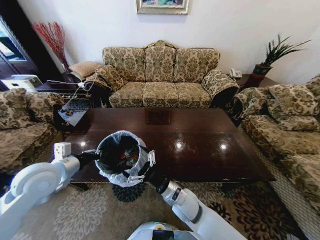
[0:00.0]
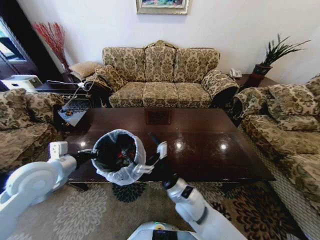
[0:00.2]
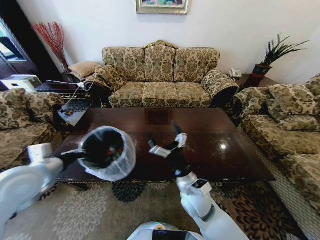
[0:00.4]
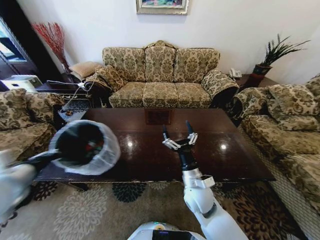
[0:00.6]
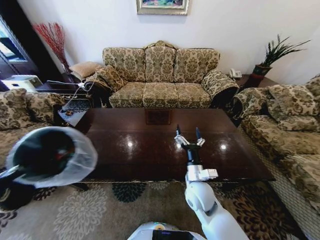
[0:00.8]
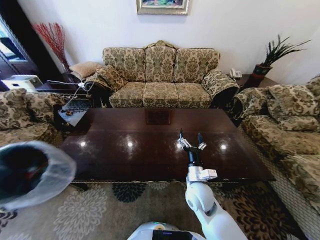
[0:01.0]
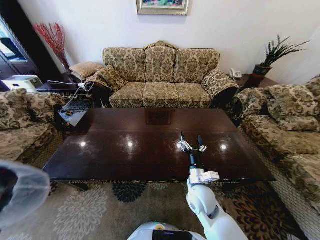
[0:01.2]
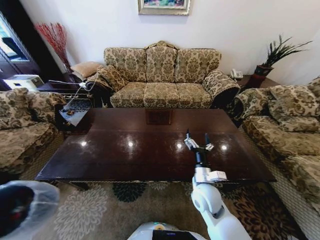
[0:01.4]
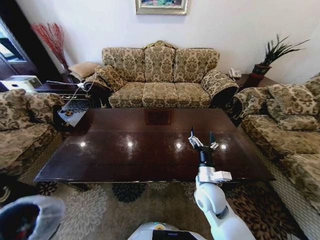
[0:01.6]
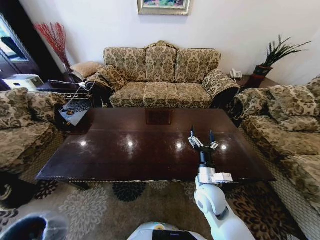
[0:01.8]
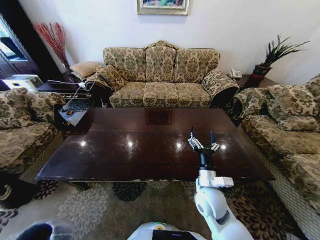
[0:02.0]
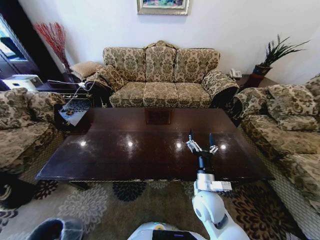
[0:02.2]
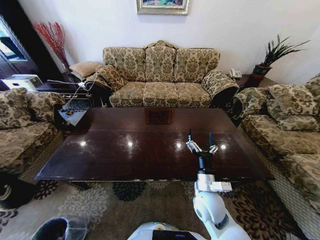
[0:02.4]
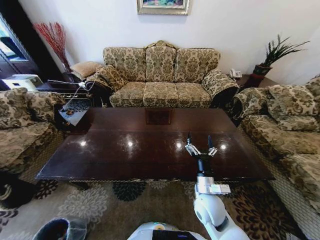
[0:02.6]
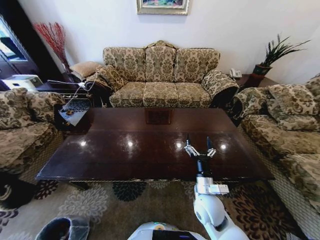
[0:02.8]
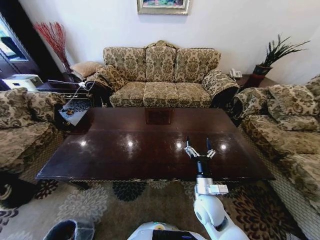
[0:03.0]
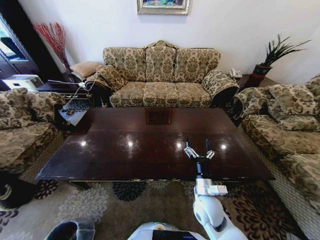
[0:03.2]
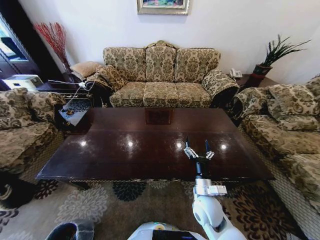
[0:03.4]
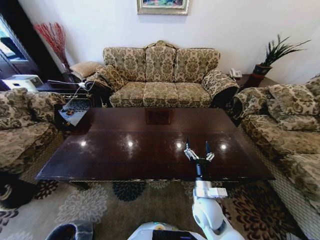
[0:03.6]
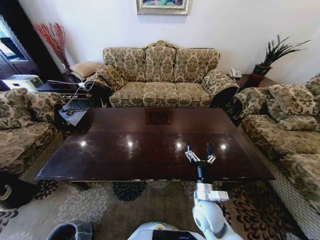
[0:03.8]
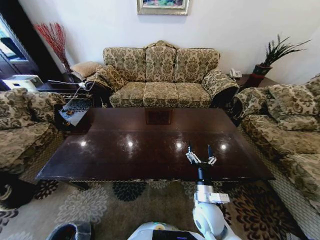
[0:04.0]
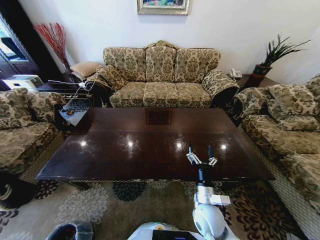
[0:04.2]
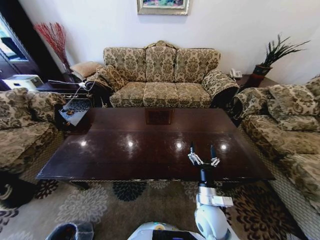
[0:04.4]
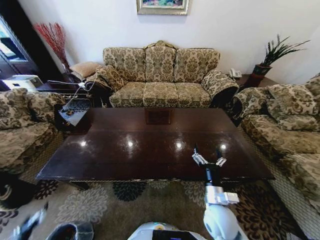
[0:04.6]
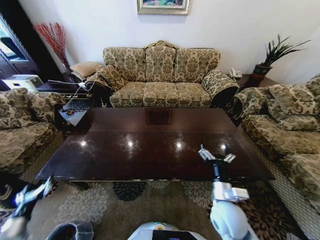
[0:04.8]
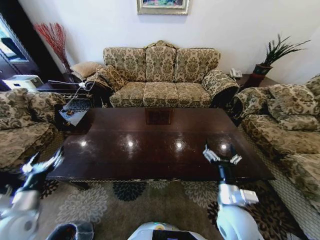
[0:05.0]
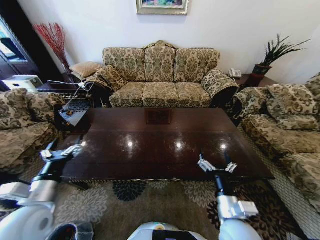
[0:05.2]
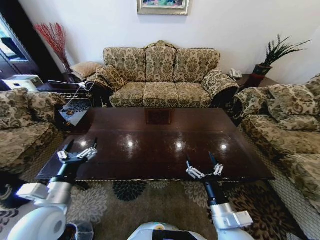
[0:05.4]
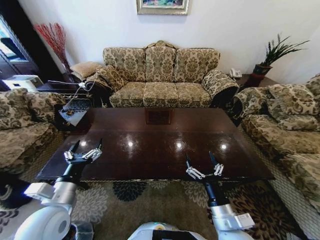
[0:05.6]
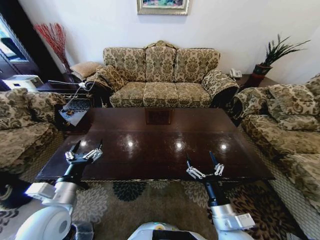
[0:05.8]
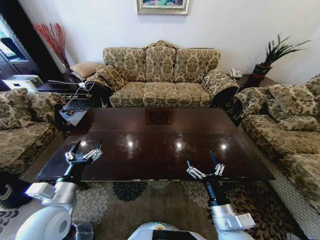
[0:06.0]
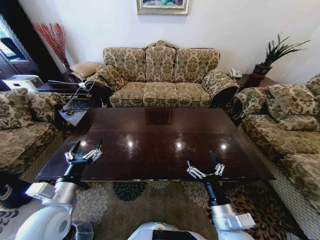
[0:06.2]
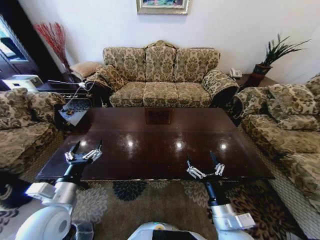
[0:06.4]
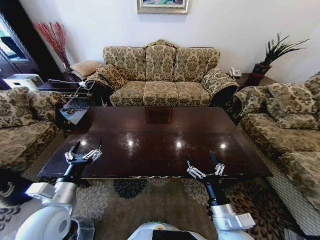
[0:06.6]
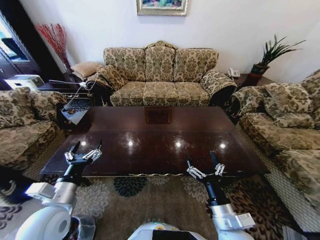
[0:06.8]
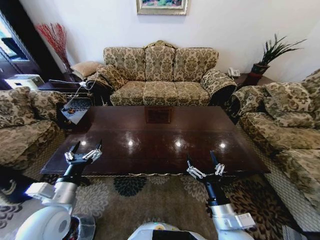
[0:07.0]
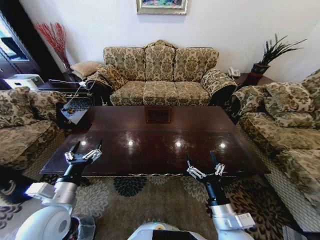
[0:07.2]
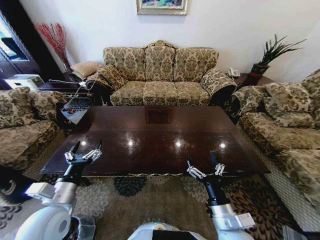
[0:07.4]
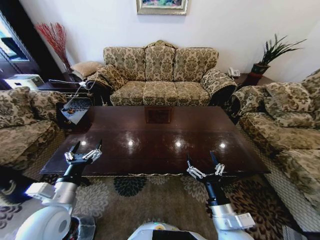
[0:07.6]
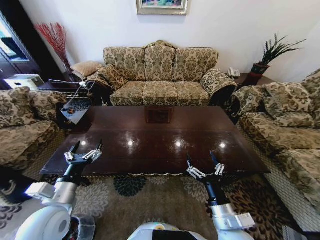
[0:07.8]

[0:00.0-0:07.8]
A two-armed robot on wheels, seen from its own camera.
Task of the whole recording: Move to the front of the table and place the trash on the table into the trash bin.
0.0 to 1.6 s: The left gripper goes some 40 cm backward, downward and to the left, while the right gripper shifts some 10 cm to the right.
1.6 to 3.2 s: The left gripper is displaced downward by some 25 cm.
3.2 to 4.6 s: The left gripper goes approximately 15 cm upward, and opens.
4.6 to 6.2 s: The left gripper goes some 40 cm upward, to the right and forward. The right gripper is displaced backward by approximately 5 cm.
6.2 to 7.8 s: Neither gripper changes place.

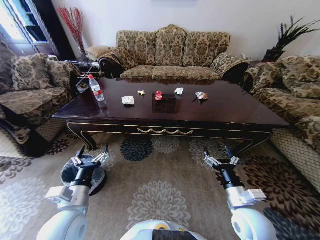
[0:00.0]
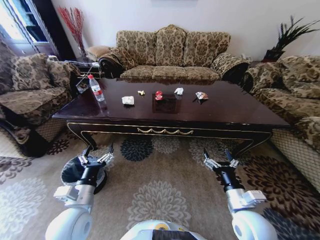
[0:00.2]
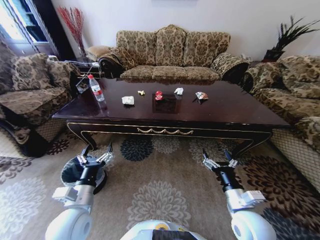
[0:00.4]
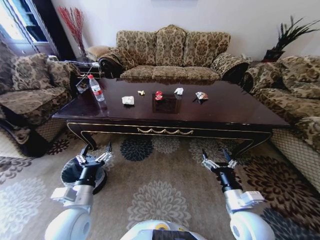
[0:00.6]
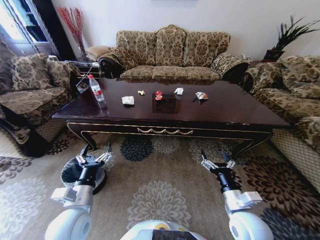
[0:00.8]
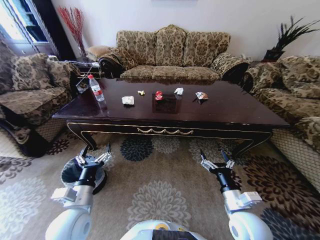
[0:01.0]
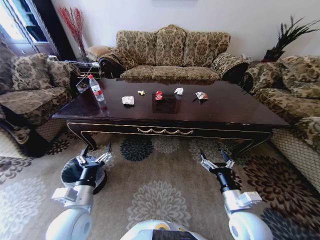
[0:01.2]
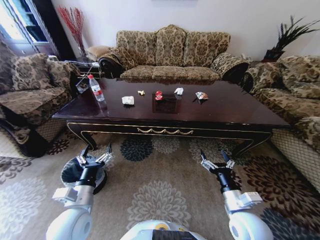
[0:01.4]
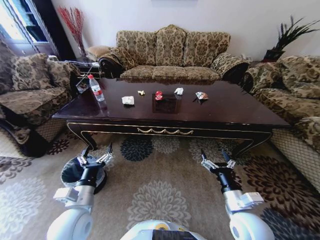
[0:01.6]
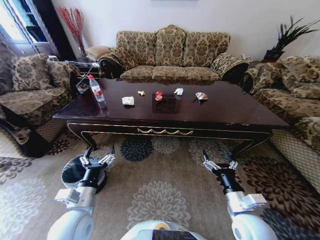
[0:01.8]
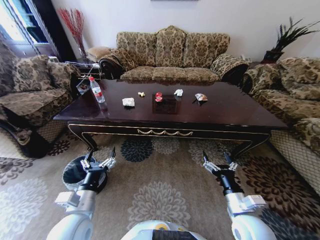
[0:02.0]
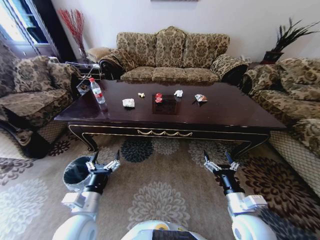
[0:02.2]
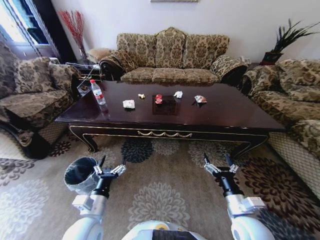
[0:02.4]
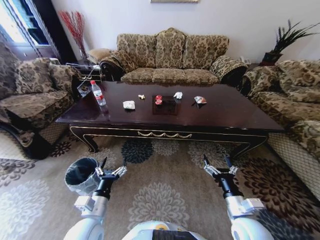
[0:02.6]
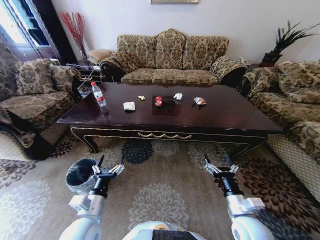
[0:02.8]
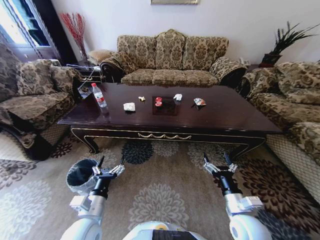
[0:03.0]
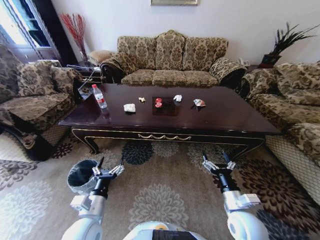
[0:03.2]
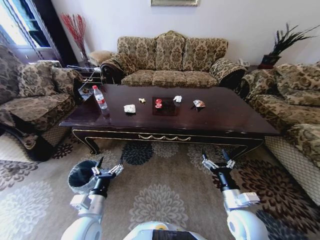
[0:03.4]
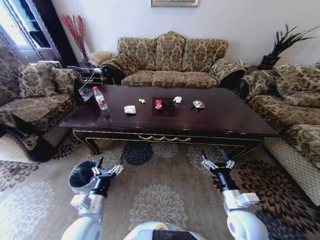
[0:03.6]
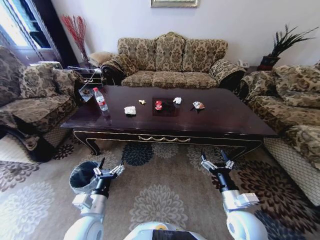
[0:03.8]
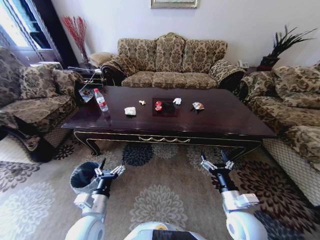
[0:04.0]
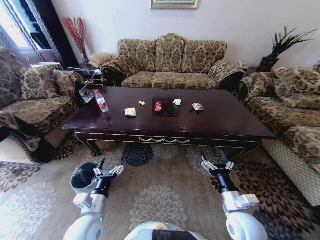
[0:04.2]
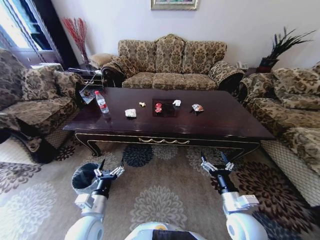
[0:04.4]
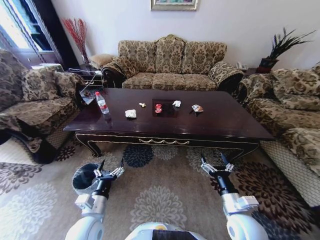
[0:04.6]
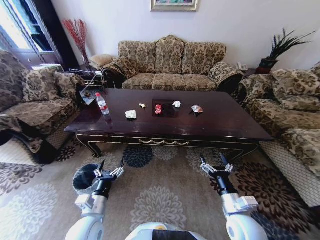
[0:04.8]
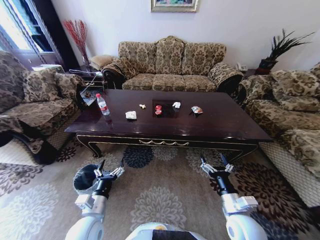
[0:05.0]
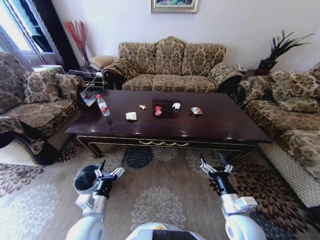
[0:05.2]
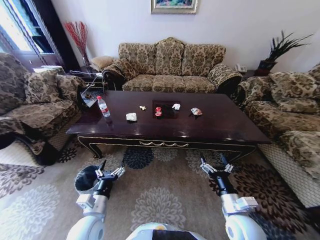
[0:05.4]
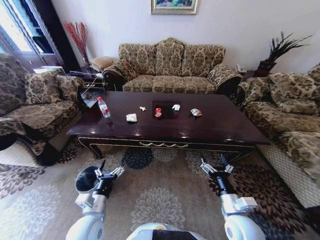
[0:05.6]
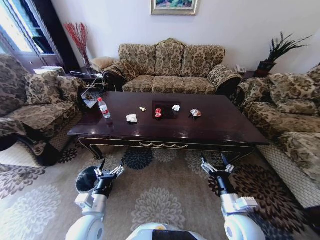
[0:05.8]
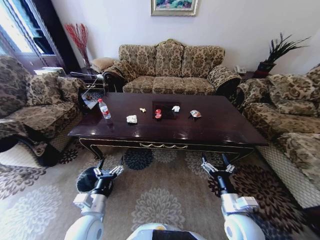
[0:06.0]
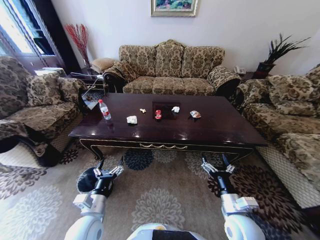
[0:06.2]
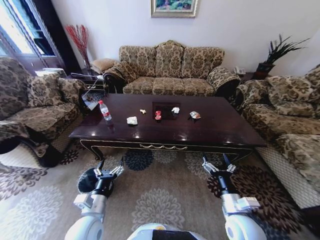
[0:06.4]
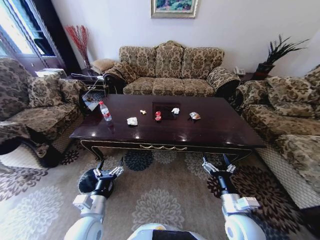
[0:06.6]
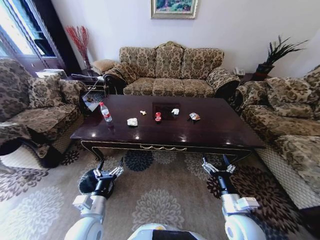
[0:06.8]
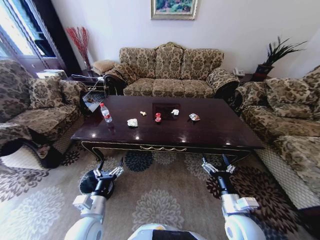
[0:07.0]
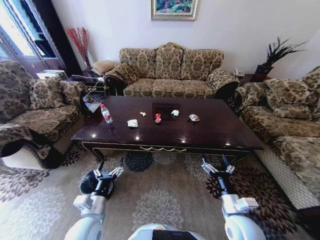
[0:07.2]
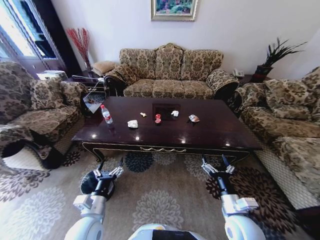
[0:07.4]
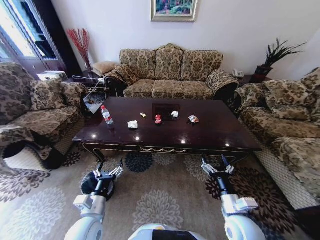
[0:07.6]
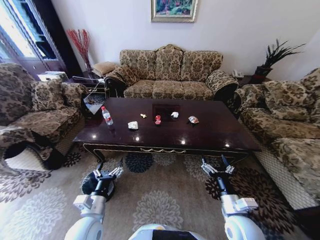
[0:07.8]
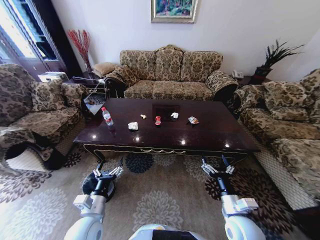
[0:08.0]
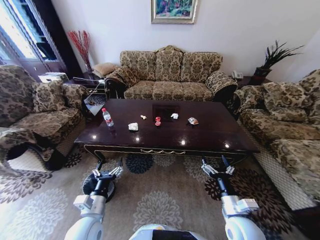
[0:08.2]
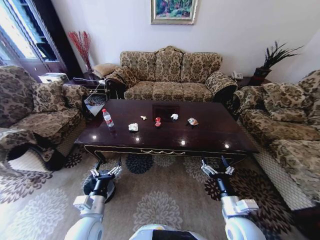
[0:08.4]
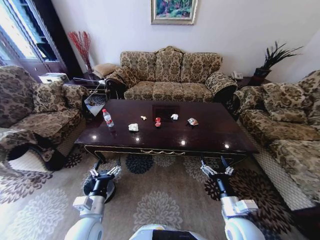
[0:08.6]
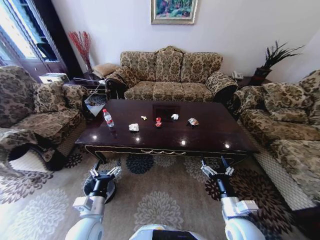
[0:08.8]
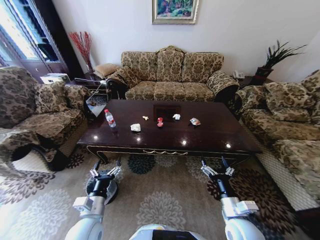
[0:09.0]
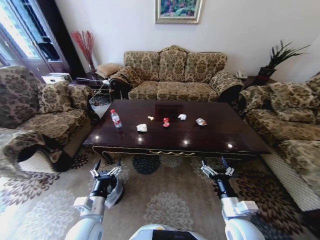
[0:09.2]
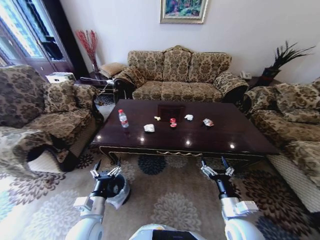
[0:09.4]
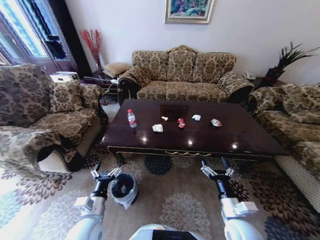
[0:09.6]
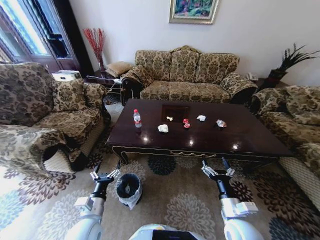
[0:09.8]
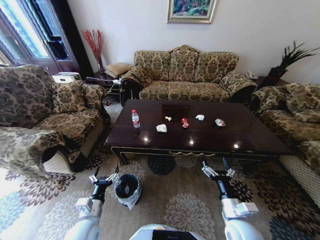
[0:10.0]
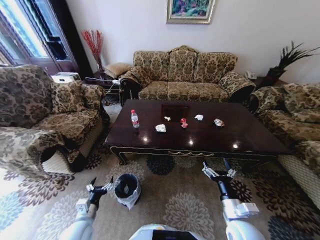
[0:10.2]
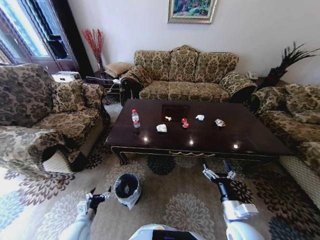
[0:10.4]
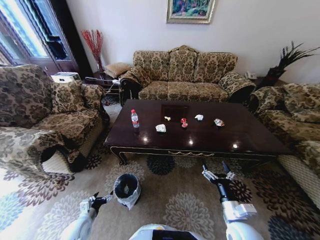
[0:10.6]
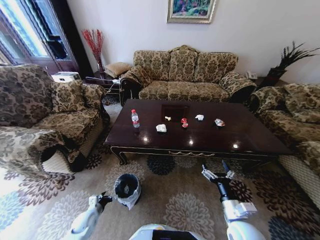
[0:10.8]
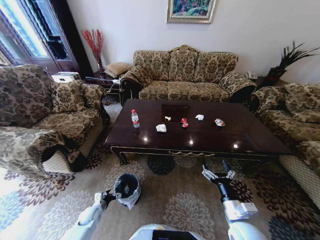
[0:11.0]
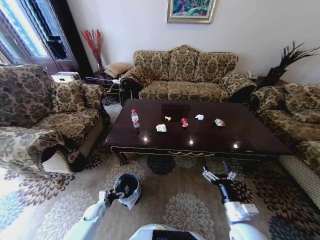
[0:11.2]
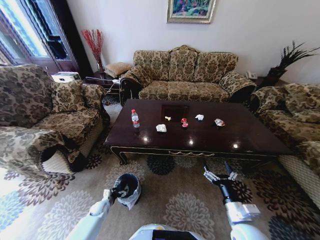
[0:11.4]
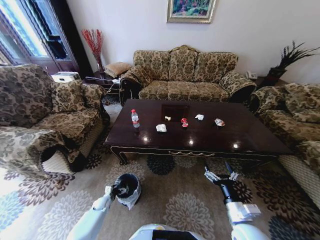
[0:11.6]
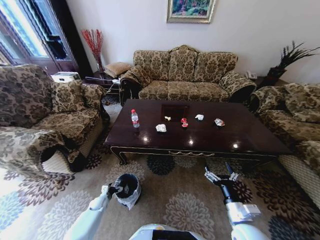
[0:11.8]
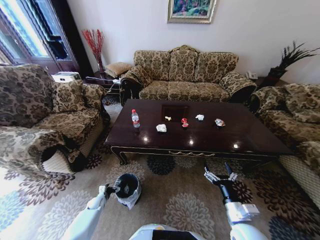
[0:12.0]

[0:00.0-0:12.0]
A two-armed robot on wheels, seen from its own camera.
Task of the whole recording: Move to the front of the table and place the trash on the table into the trash bin.
9.0 to 10.4 s: The left gripper goes roughly 15 cm downward and to the left.
10.4 to 12.0 s: The left gripper shifts roughly 20 cm downward and forward.

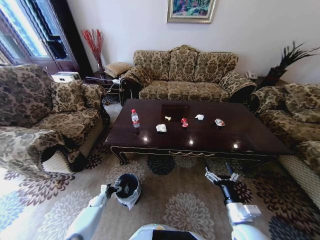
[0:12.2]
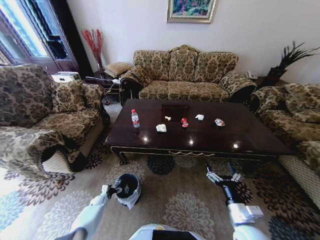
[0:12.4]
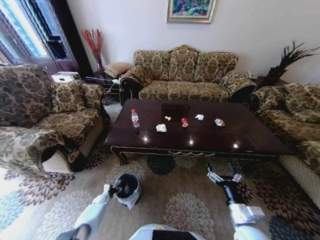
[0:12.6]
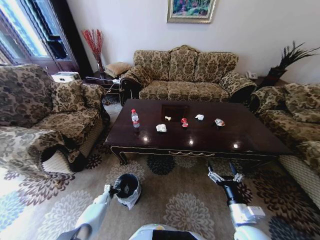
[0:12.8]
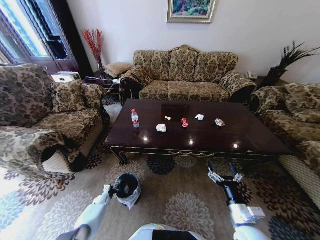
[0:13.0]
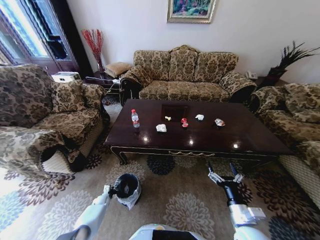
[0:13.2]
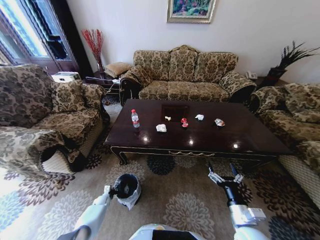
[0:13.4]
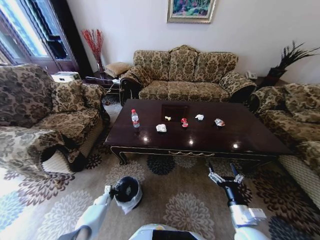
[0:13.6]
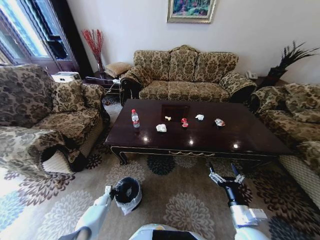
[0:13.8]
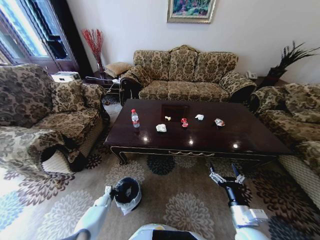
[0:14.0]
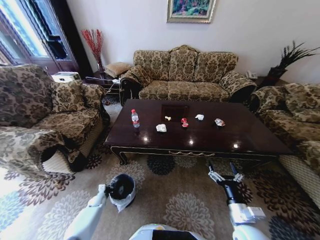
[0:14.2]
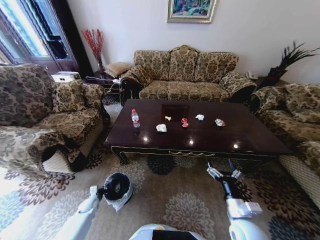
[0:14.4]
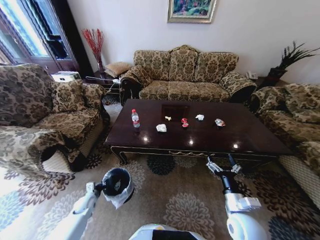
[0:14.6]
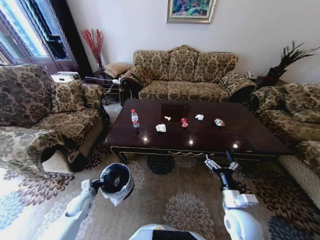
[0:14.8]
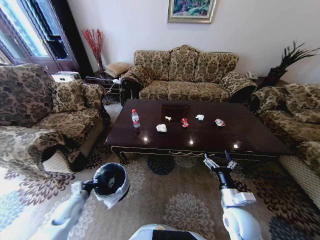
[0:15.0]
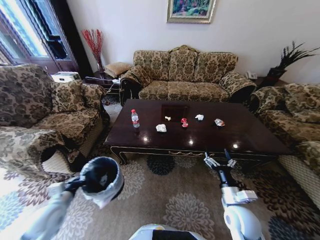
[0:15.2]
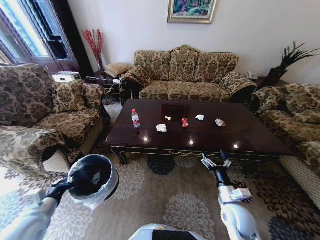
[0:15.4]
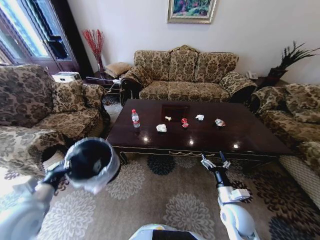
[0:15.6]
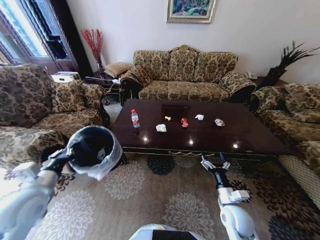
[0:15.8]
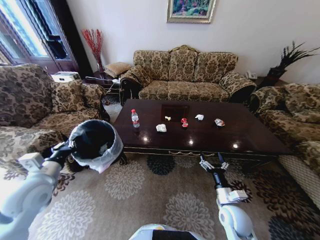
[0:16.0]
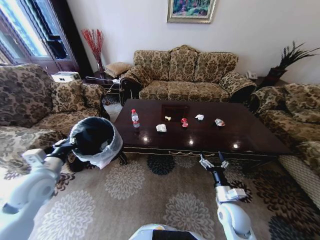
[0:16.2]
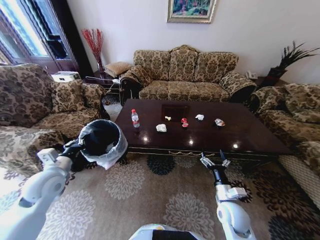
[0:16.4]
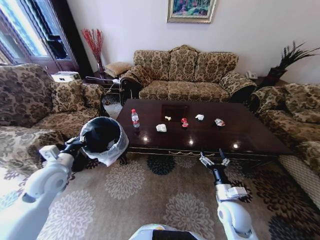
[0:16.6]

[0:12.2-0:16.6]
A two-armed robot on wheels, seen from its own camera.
Task of the whole recording: Move to the front of the table and place the trash on the table into the trash bin.
12.2 to 13.6 s: The left gripper closes its fingers.
13.6 to 15.2 s: The left gripper moves upward, approximately 35 cm, while the right gripper travels forward by roughly 5 cm.
15.2 to 16.6 s: The left gripper travels upward and forward by some 15 cm.
